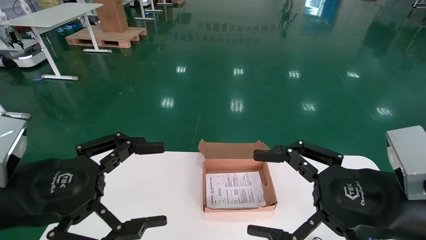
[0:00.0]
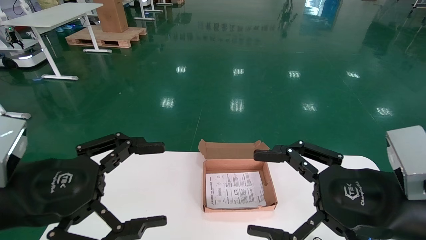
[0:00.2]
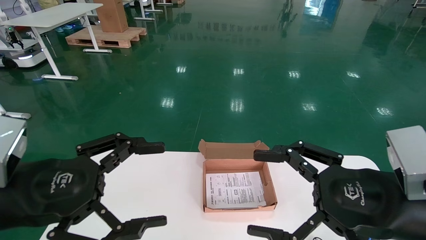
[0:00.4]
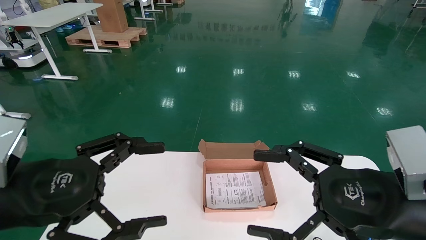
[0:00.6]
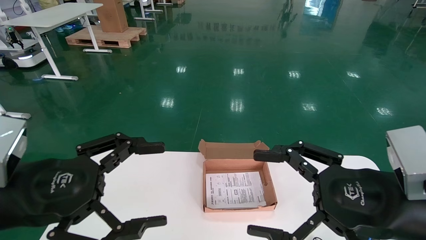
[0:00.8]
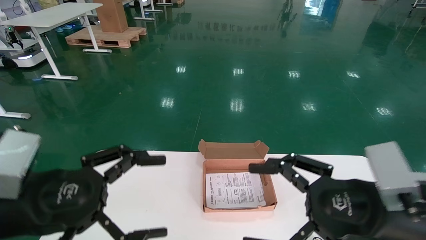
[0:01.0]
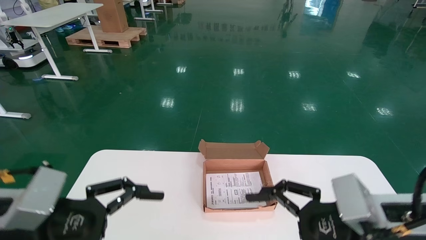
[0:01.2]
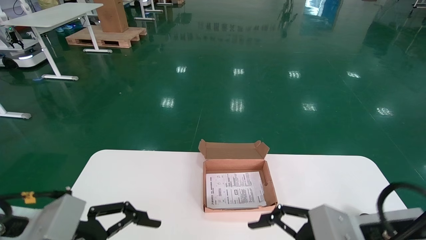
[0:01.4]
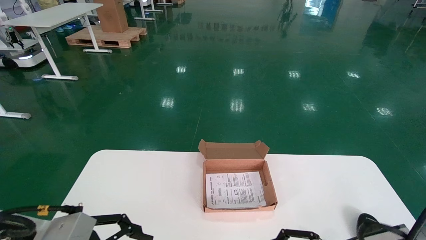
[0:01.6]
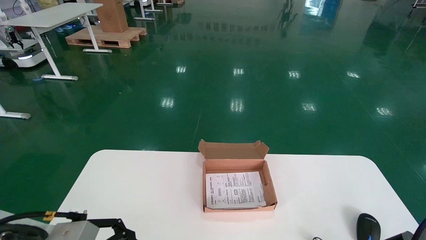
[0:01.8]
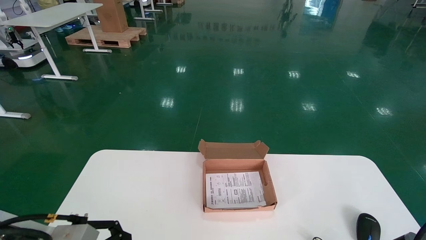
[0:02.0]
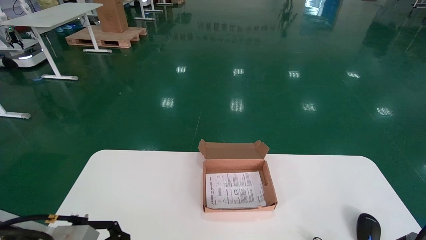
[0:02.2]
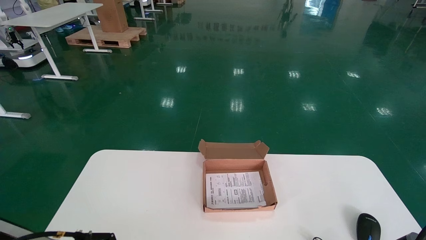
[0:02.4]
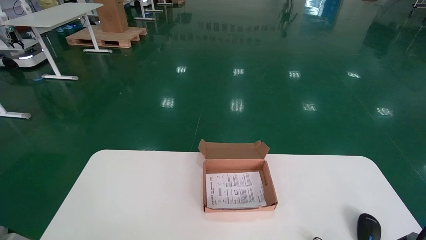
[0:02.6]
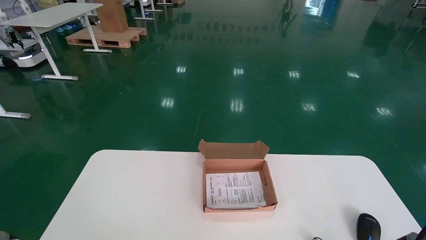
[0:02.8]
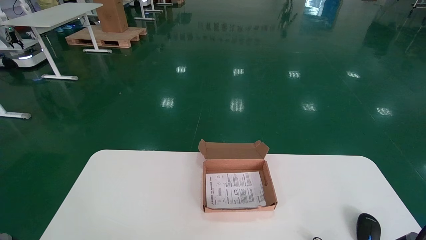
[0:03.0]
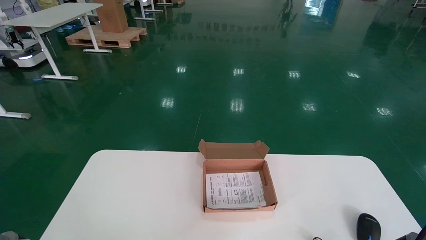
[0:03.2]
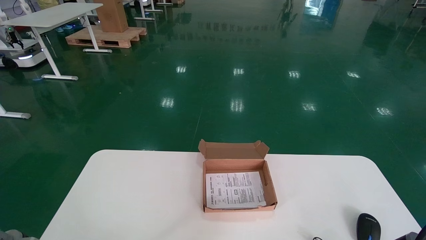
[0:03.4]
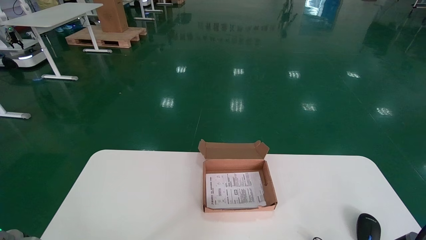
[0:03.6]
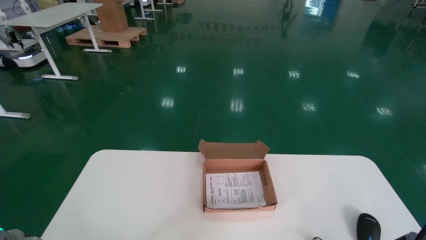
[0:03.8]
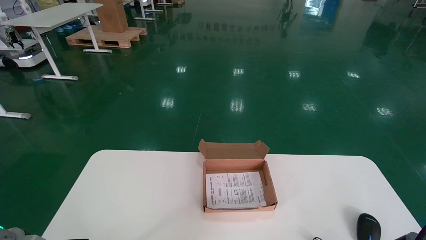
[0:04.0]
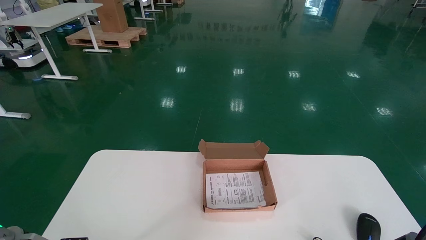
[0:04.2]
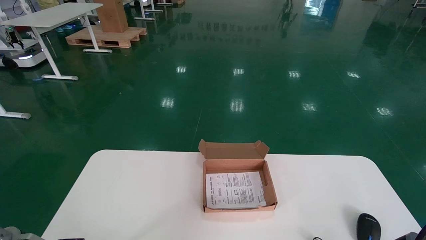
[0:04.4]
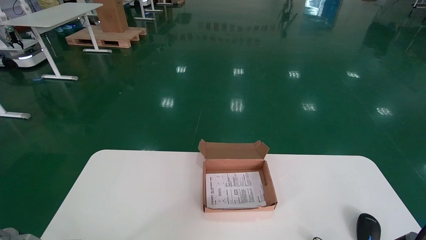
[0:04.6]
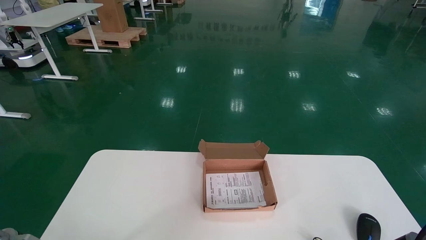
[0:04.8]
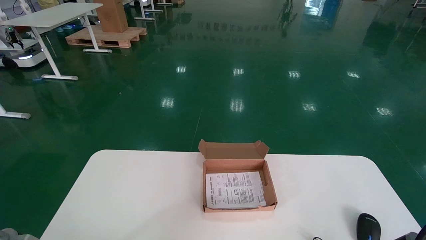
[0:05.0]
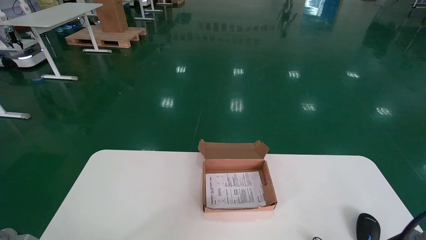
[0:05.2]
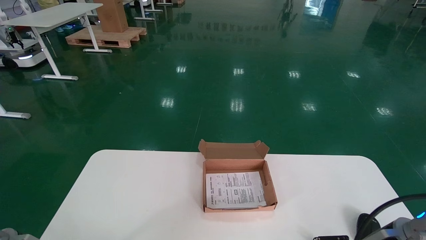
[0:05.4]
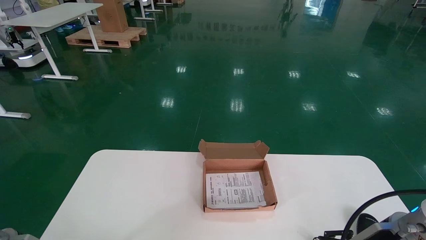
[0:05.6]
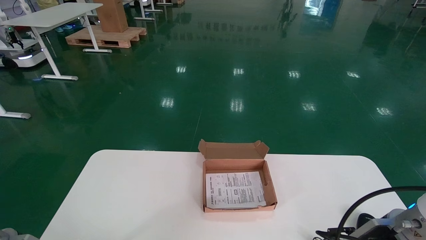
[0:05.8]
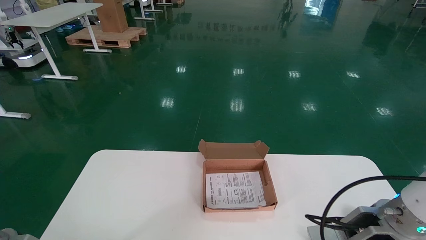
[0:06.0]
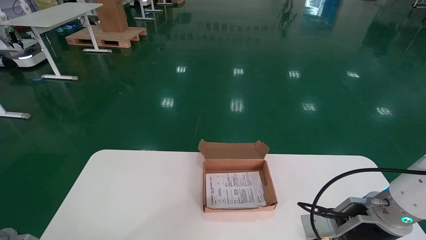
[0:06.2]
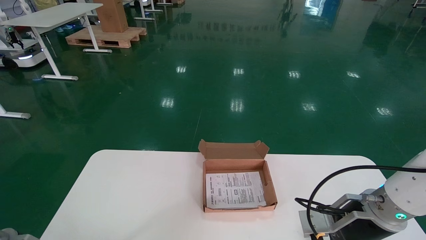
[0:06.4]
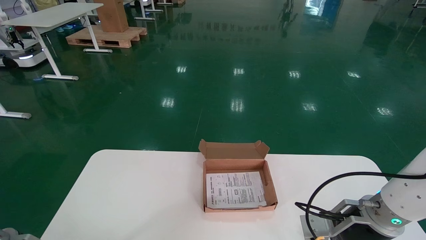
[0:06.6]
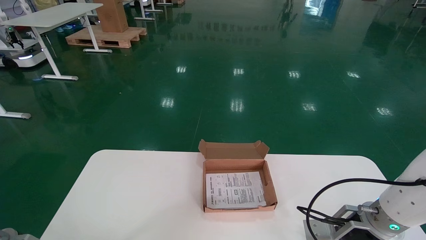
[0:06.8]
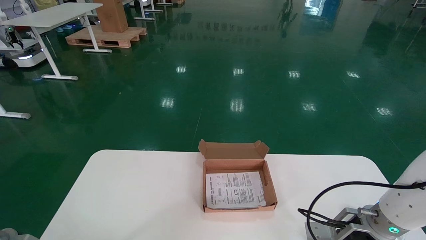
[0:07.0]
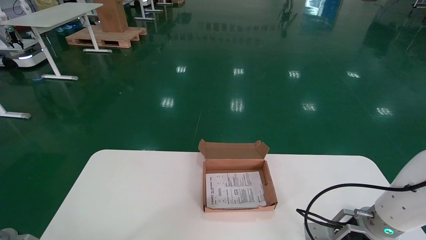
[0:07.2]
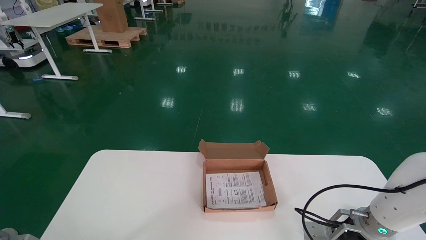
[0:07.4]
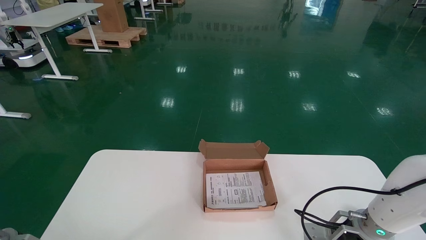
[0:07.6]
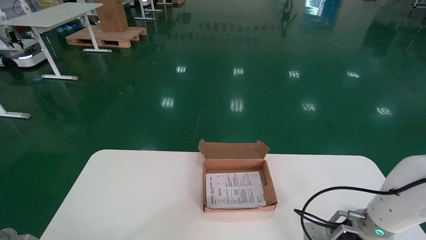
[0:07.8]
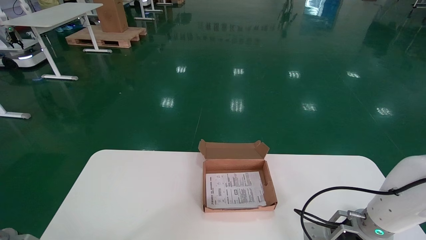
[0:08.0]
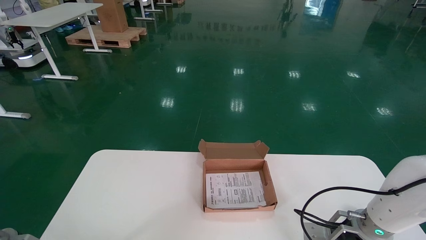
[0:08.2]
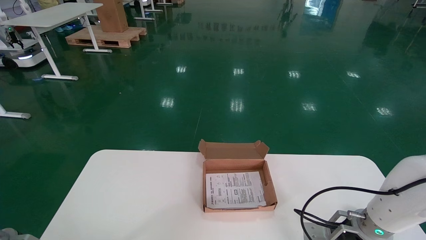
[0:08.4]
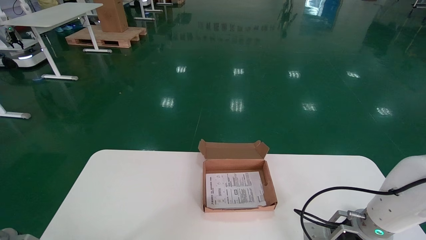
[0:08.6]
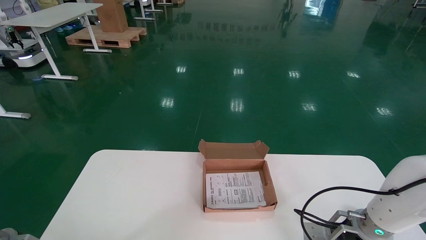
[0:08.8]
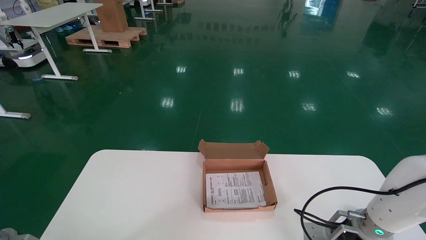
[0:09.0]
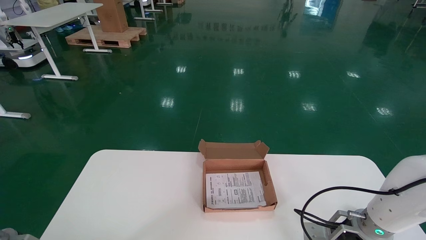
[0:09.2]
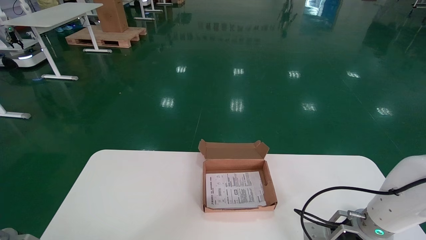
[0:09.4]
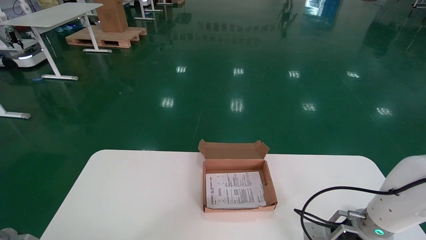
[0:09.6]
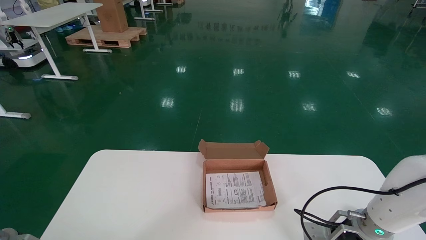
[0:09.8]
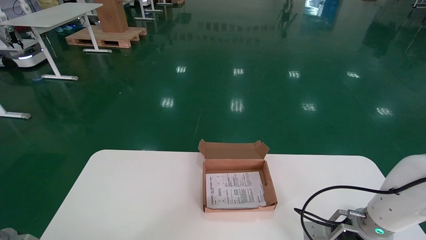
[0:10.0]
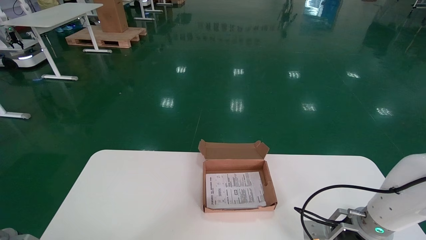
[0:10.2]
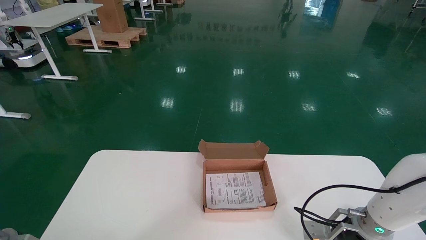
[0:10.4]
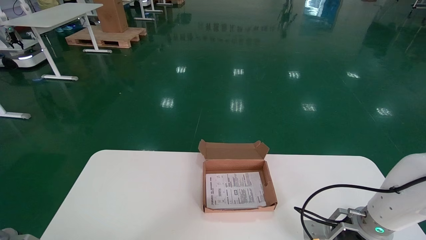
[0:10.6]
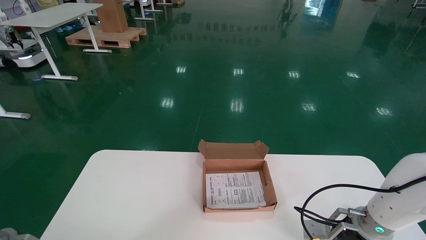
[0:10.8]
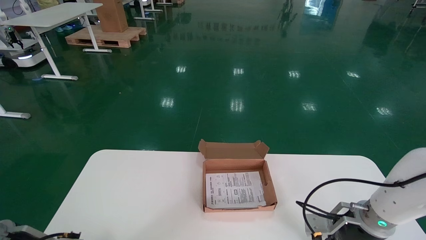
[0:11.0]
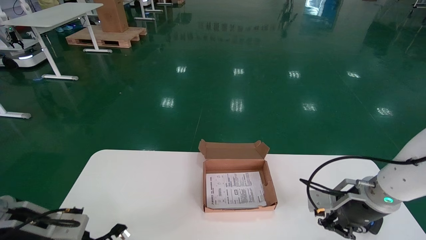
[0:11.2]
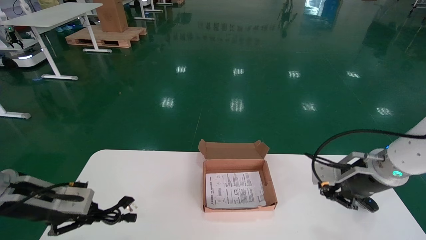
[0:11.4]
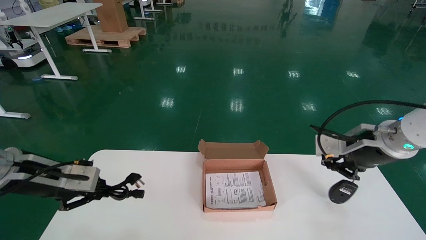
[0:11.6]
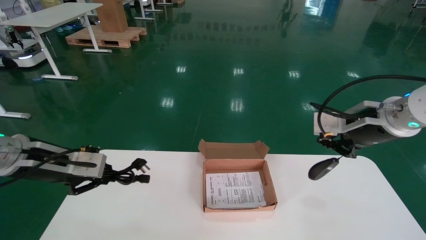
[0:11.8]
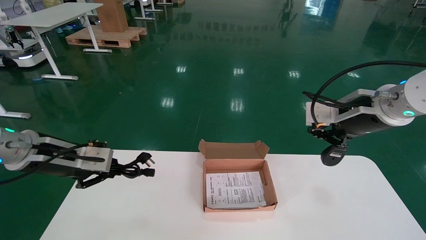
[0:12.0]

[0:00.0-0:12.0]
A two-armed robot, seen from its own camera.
Step, 0:01.0 to 0:11.0: Grab and pick up the mouse and power cord from the accessory packaging area.
0:00.0 to 0:01.6: The right gripper is displaced downward by some 10 cm.
0:01.6 to 0:03.0: The left gripper travels downward by about 10 cm.
0:04.4 to 0:06.0: The right gripper is displaced forward by approximately 10 cm.
0:06.0 to 0:07.6: The right gripper moves downward and forward, some 10 cm.
0:07.6 to 0:09.0: Neither gripper changes place.
0:09.0 to 0:10.4: The right gripper closes its fingers.
0:10.4 to 0:12.0: The grippers both shift upward by about 20 cm.

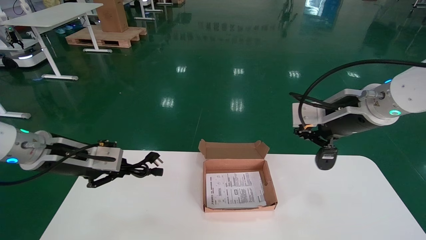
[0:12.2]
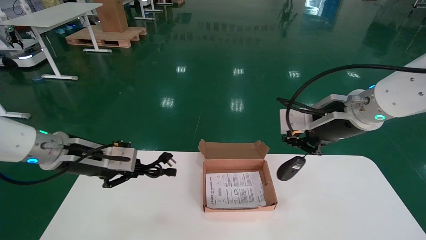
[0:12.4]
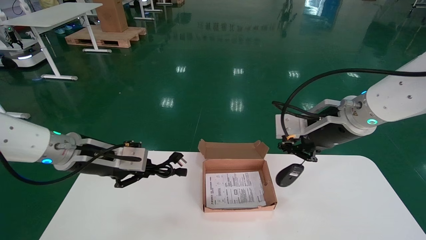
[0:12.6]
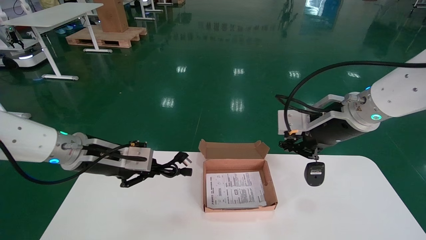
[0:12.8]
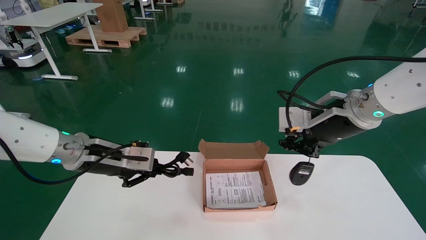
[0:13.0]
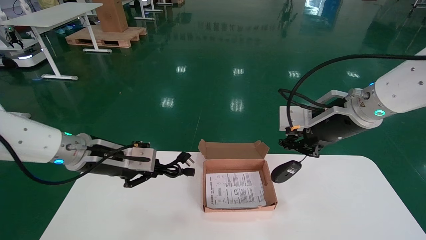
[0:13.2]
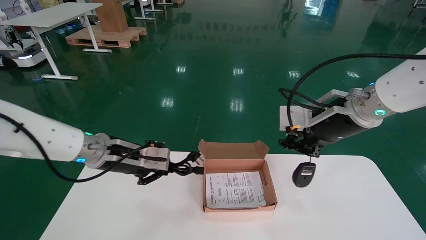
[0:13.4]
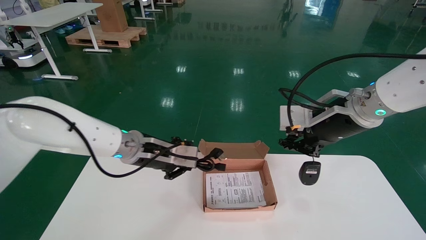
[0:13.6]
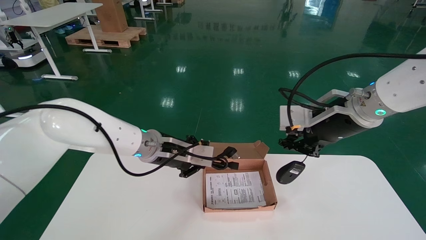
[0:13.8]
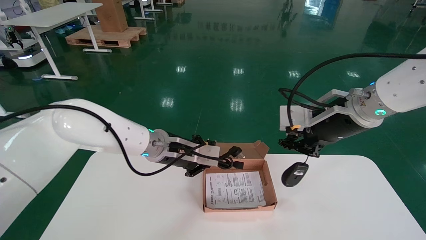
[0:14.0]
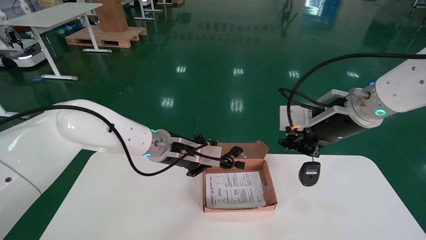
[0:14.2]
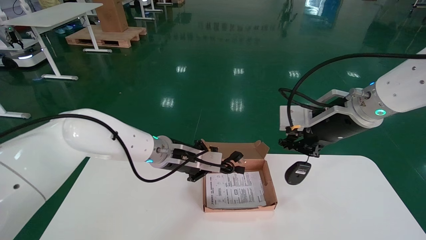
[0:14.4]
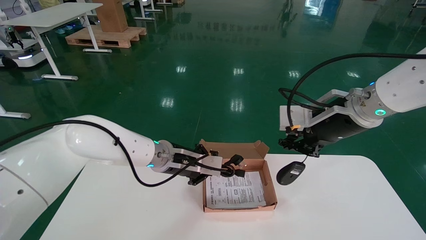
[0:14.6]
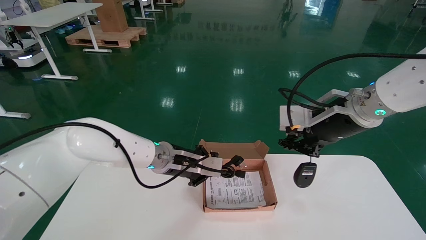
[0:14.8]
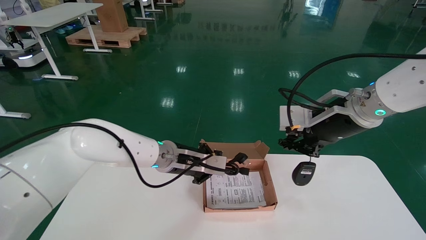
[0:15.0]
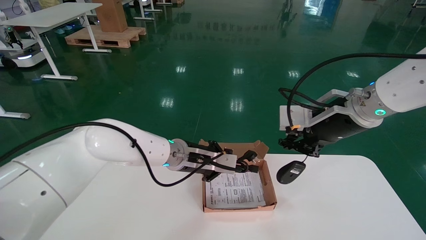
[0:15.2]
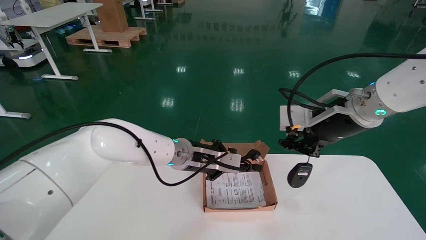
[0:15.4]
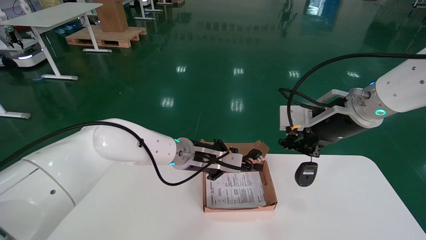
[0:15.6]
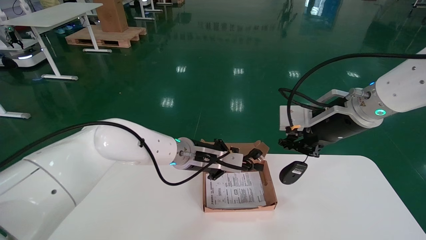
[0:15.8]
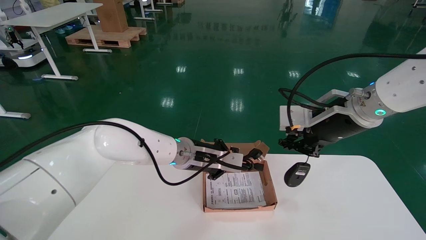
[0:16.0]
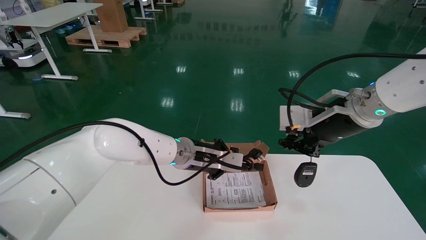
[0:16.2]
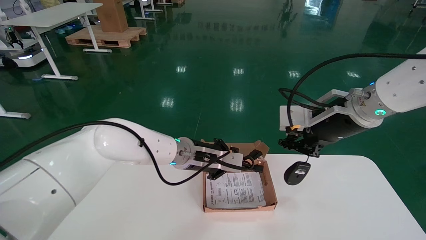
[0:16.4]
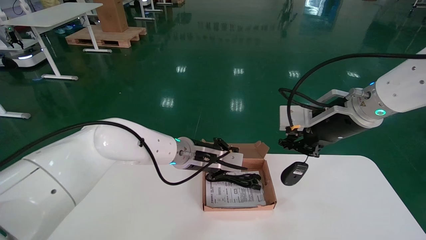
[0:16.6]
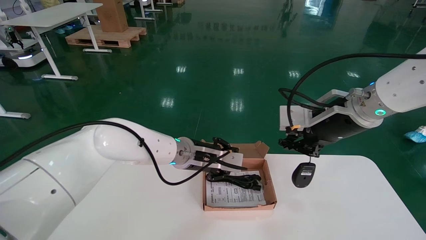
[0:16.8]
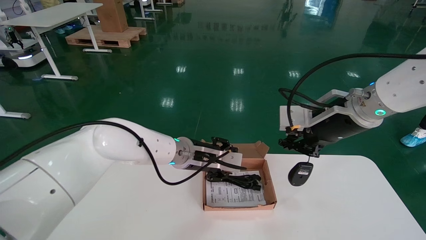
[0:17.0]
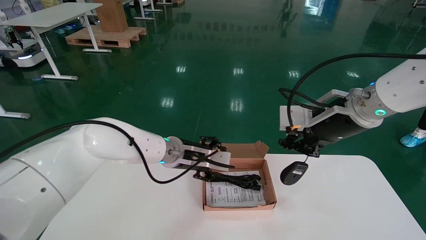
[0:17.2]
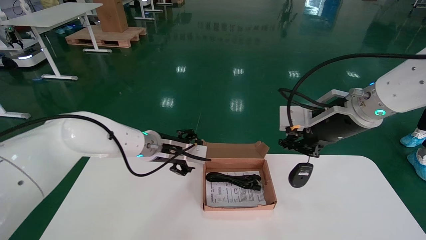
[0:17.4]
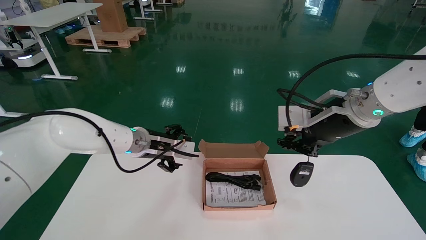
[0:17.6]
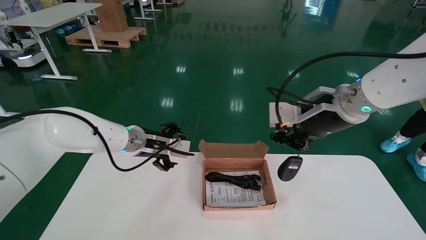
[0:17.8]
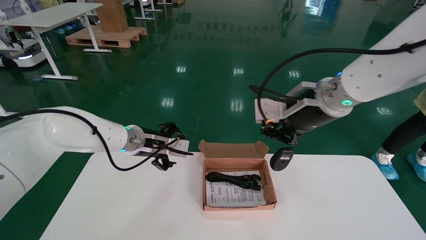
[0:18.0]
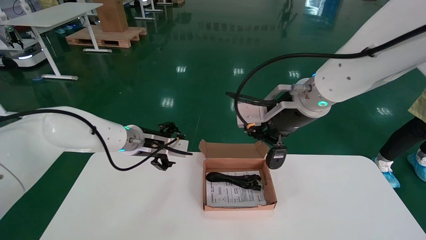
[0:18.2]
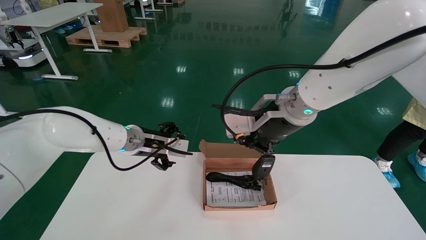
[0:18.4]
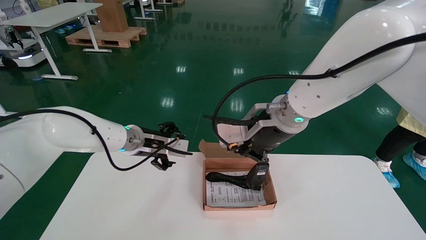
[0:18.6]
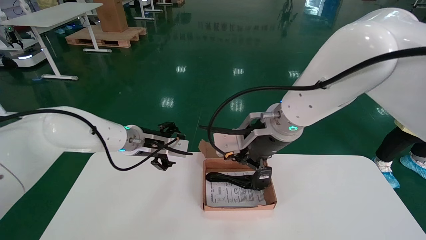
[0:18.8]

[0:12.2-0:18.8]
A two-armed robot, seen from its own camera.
0:12.2 to 0:13.8: The left gripper heads to the right and forward, covering about 20 cm.
0:13.8 to 0:15.4: The left gripper heads to the right, covering some 5 cm.
0:15.4 to 0:17.2: The left gripper opens its fingers.
0:17.2 to 0:18.8: The right gripper is displaced to the left by approximately 15 cm; the left gripper travels to the left by roughly 10 cm, and opens up.
